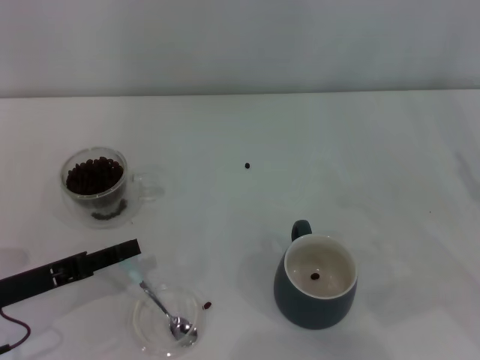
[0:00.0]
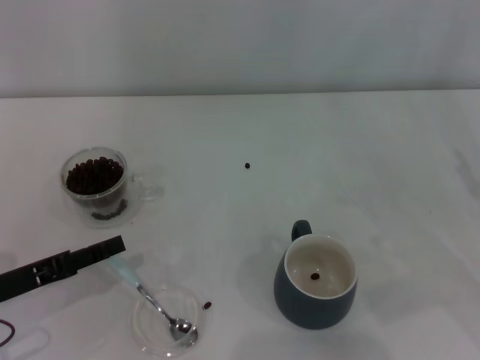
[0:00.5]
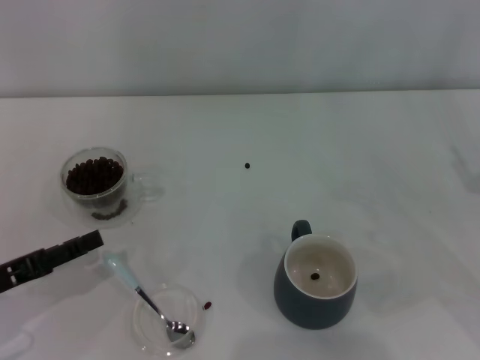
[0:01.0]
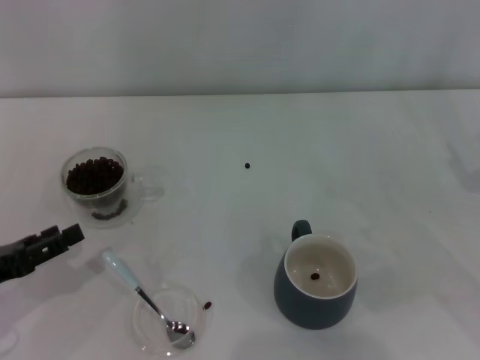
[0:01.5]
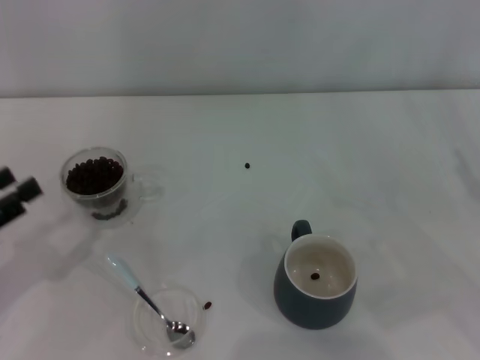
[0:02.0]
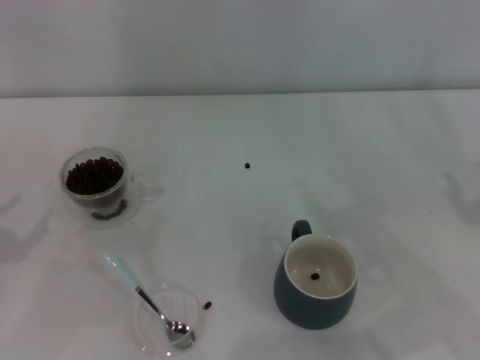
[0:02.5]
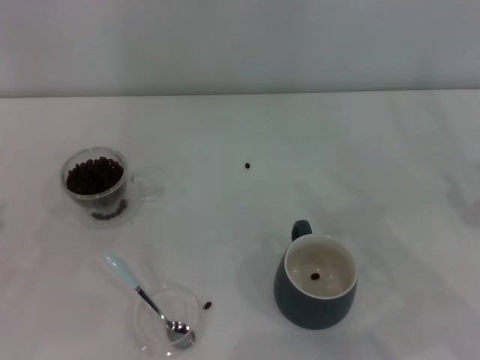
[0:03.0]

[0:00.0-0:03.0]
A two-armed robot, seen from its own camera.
Task of the whole recording: Use a blue spoon to take out the coffee beans from the glass and pour them into the gray cup.
0:00.0 to 0:01.5: The left gripper opens.
0:01.5 to 0:03.0: The left gripper heads to the left and upward, covering some 10 cm.
